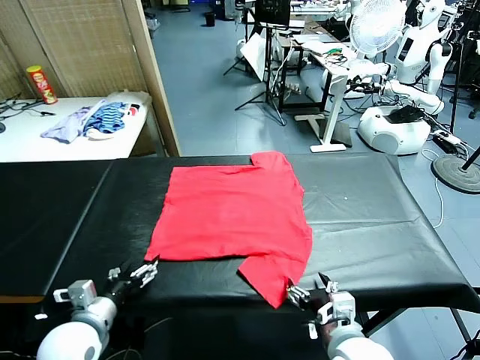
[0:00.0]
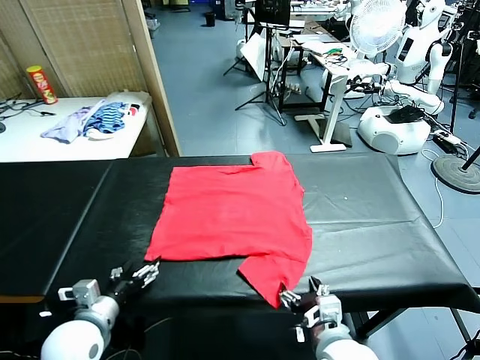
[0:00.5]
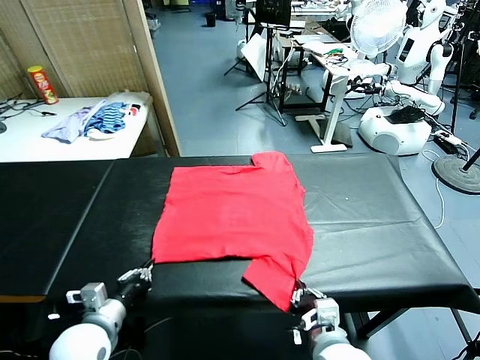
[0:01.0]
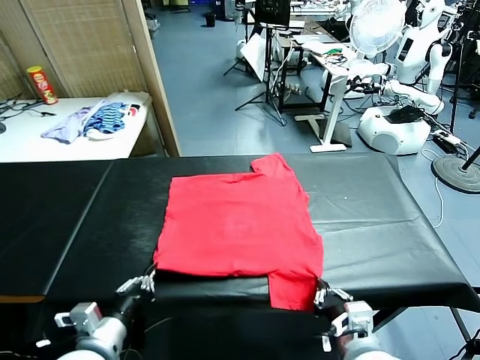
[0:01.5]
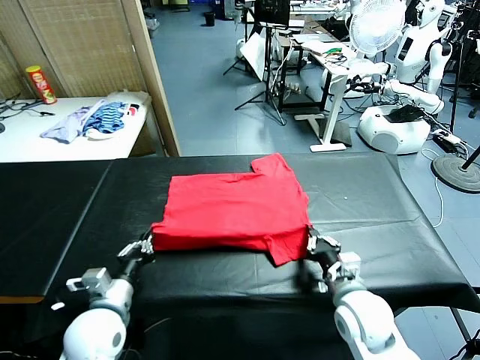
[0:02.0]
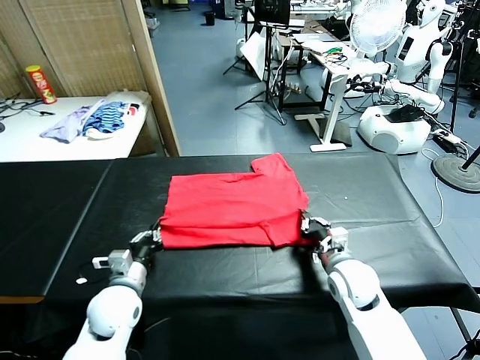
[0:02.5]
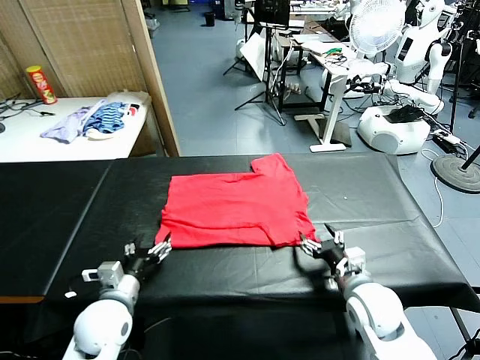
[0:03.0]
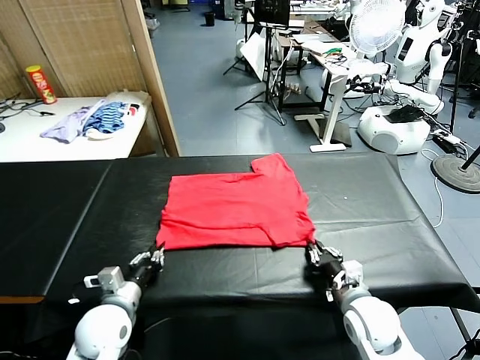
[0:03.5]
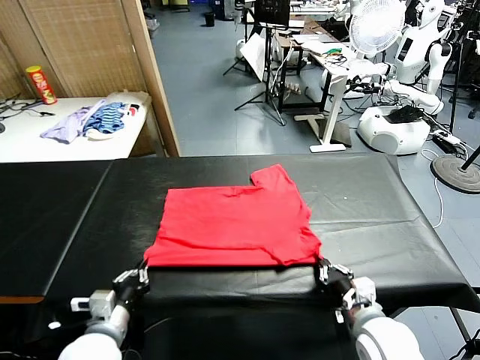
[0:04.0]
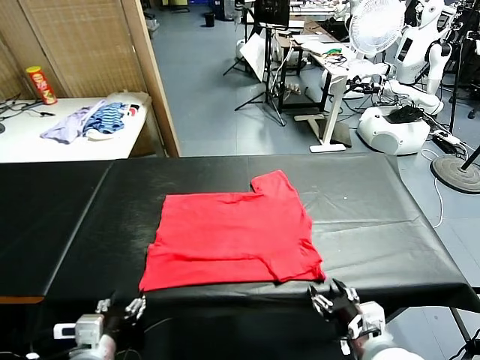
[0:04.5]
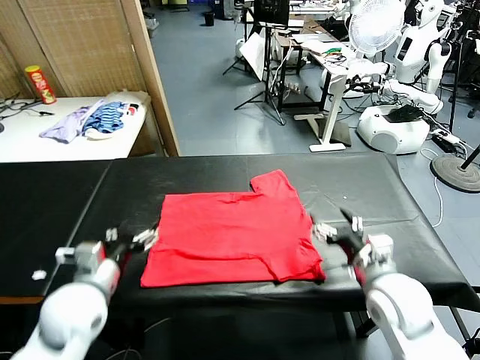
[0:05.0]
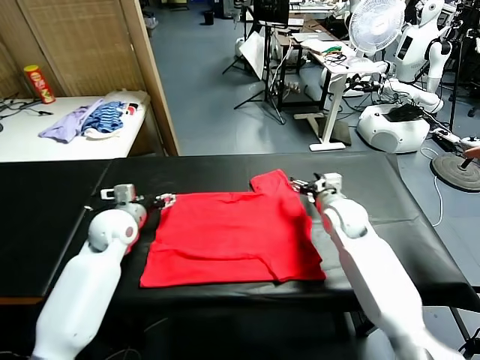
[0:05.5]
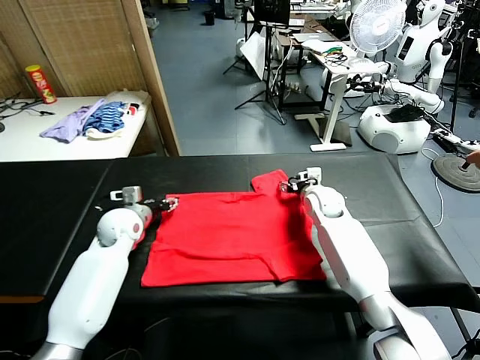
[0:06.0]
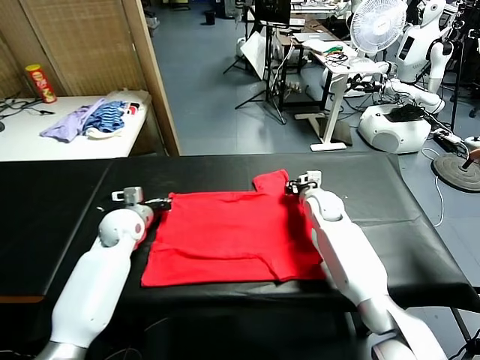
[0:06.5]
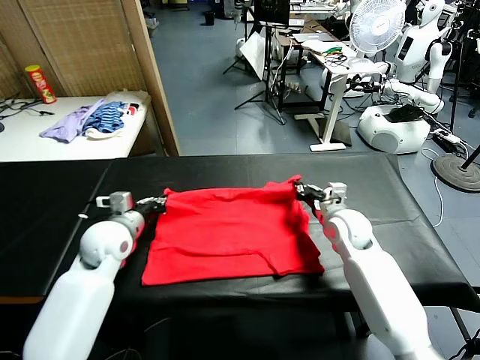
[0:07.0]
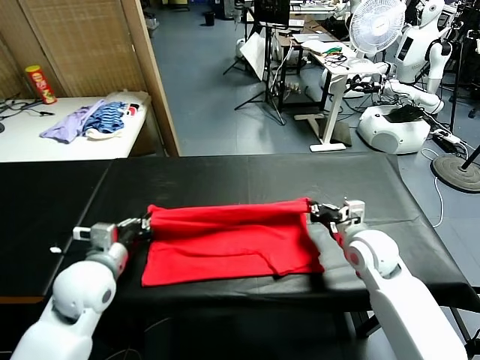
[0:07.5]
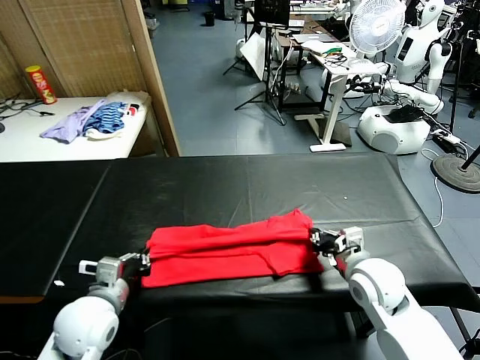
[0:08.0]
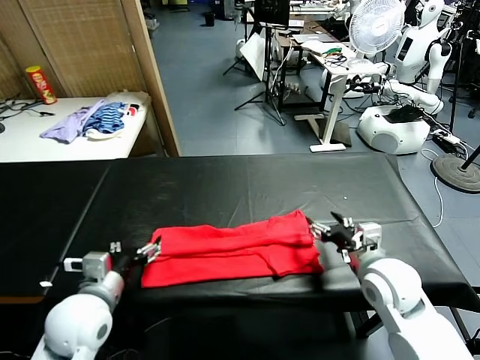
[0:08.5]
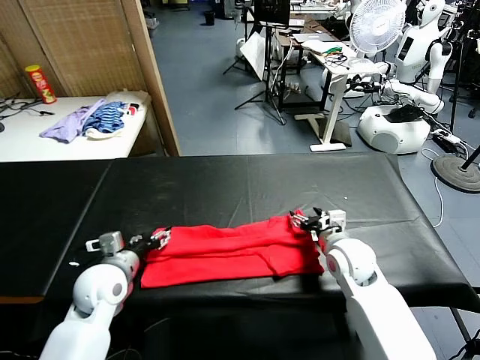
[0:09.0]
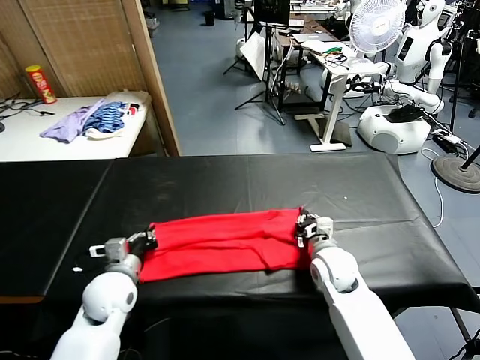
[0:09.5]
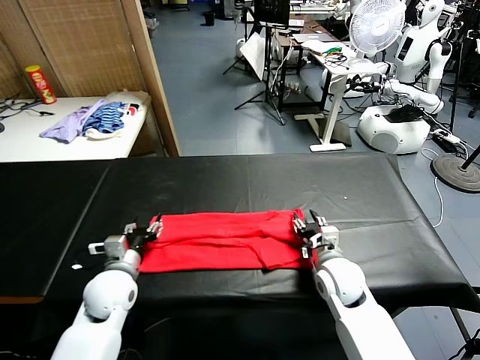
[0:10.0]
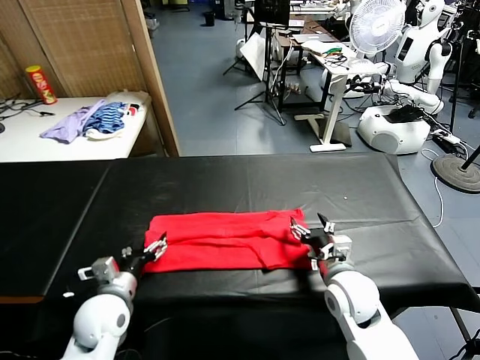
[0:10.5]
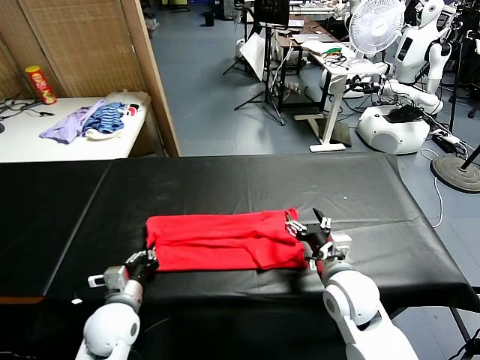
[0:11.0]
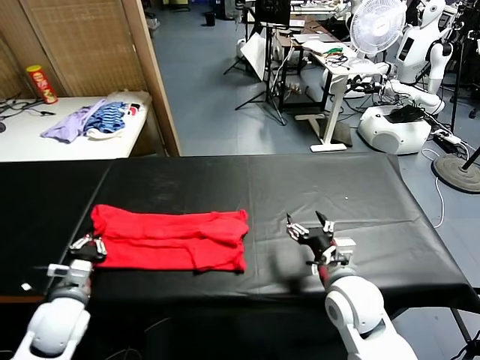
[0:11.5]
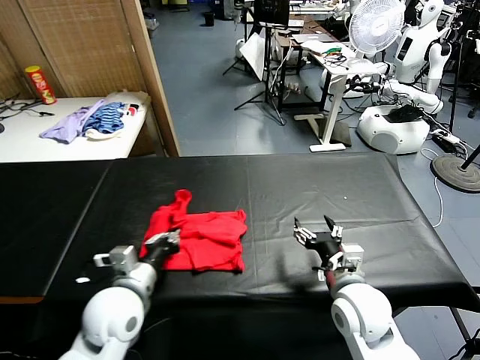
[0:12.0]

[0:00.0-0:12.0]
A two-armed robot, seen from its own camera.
Task of the whole recording: fold and organize the clothes.
Step, 0:00.0 to 0:00.5: use both grippers simultaneously to clamp the lower edge of the clothing fabric.
Step, 0:01.0 to 0:02.5: use both grippers to drag the lower edge of the fabric forward and fold it over the upper edge.
Step, 0:03.0 to 0:04.0: Drag the clothes downward with both gripper.
Step, 0:05.0 to 0:06.5: use both grippers simultaneously to clamp the upper edge of the clothing fabric.
Step, 0:07.0 to 0:08.0: use both grippers to drag the upper edge of the fabric backward and fold it over the lower edge.
Step, 0:08.5 to 0:11.0: use the left gripper to clamp the left edge of the fabric.
0:02.0 to 0:04.0: The left gripper travels backward by approximately 5 cm, and opens and closes again, while the right gripper is displaced backward by roughly 10 cm, and opens and closes again.
0:04.0 to 0:06.0: The grippers both shift forward by roughly 30 cm. The left gripper opens up. Meanwhile the right gripper opens up.
0:06.0 to 0:08.0: Both grippers travel together backward, approximately 25 cm. The left gripper closes. Meanwhile the right gripper closes up.
0:08.0 to 0:10.0: The right gripper travels downward by about 5 cm, and opens up, while the left gripper moves forward, approximately 5 cm, and opens.
0:10.0 to 0:12.0: The right gripper moves backward and upward, approximately 10 cm, while the left gripper moves to the right, upward and backward, roughly 10 cm, and closes its fingers.

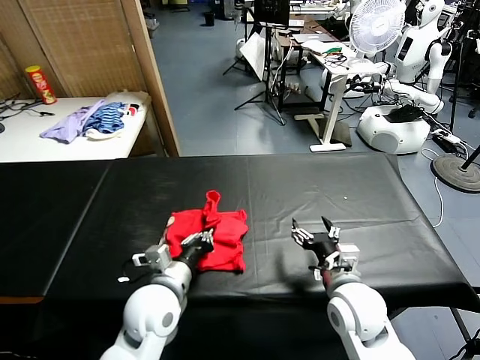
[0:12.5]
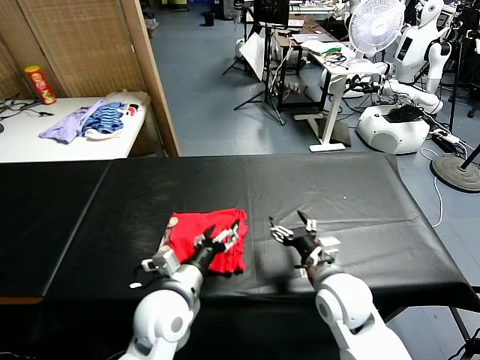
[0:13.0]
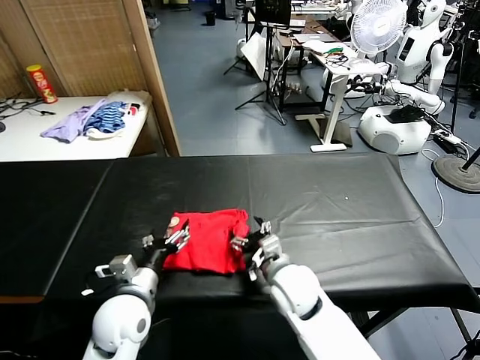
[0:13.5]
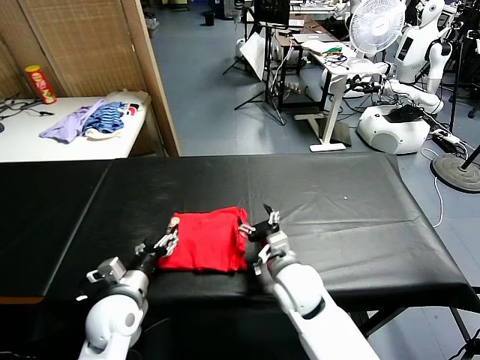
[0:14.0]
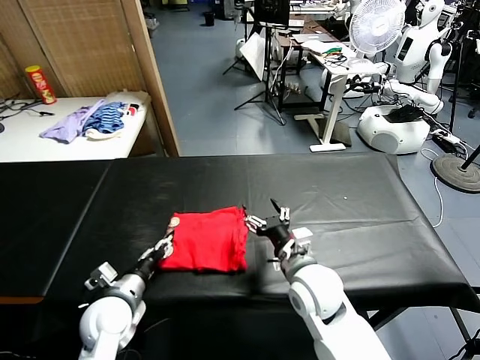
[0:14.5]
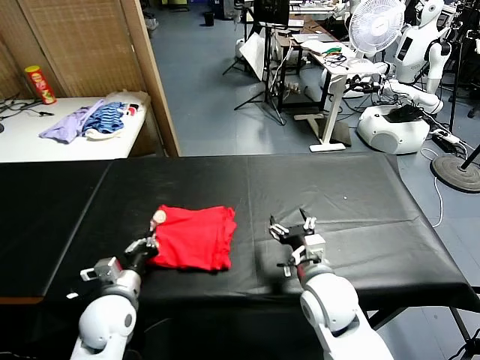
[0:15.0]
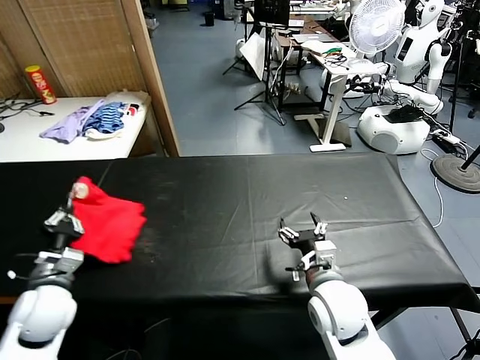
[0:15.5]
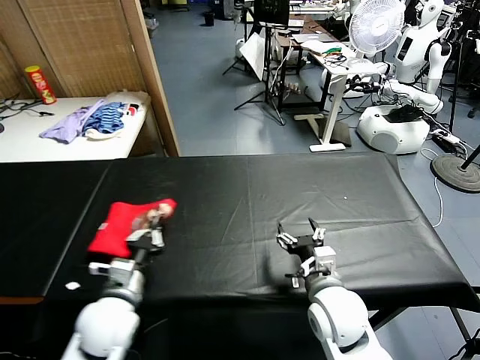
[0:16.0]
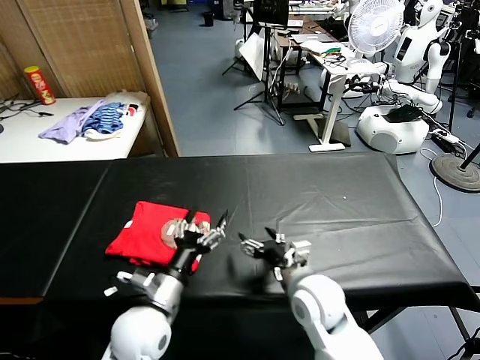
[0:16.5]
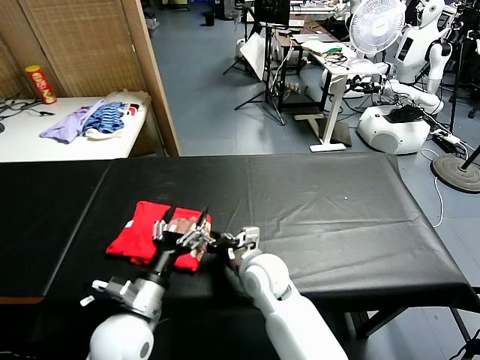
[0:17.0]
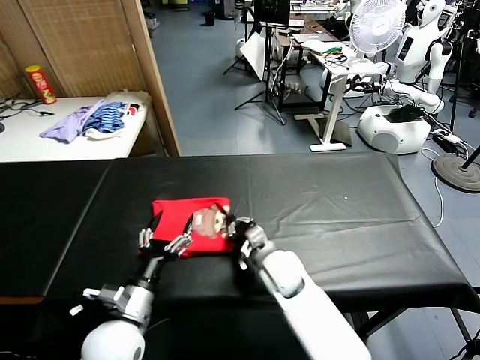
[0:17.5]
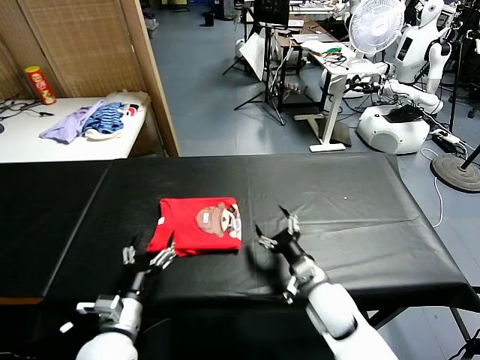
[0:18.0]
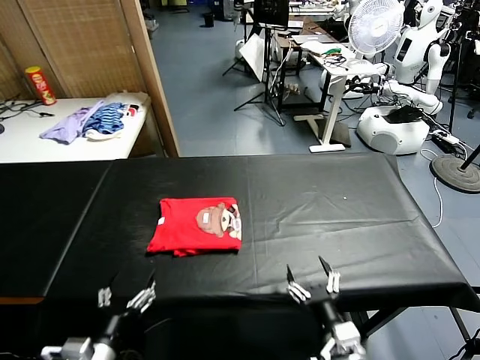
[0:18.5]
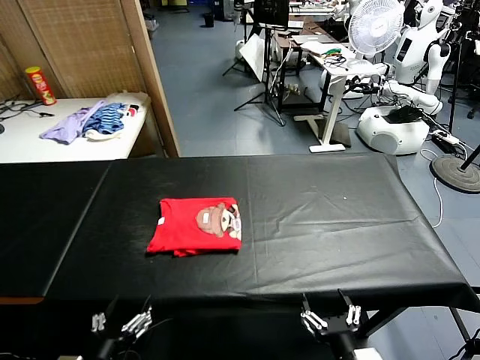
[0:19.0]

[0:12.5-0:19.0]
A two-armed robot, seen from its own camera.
Task of the whole recording: fold and organize the clothes.
Step, 0:13.0 to 0:16.0: Flip the folded clothes over with left gripper.
Step, 0:16.5 to 0:17.5: Drag the clothes to the center of the table.
0:12.5 to 0:14.5: The right gripper heads to the left, covering some 5 cm, while the left gripper is displaced to the left and downward by about 15 cm, and opens up.
0:14.5 to 0:17.0: The left gripper shifts approximately 10 cm to the right and upward, and opens. Meanwhile the right gripper goes some 10 cm to the left.
0:17.0 to 0:19.0: The left gripper goes about 15 cm backward and to the left. Meanwhile the right gripper goes about 30 cm backward and to the right, and closes, then opens again.
